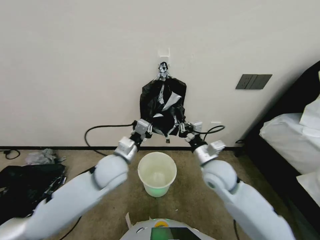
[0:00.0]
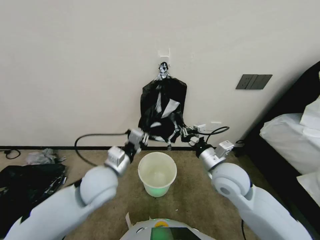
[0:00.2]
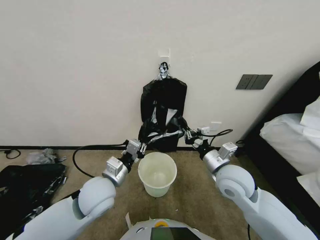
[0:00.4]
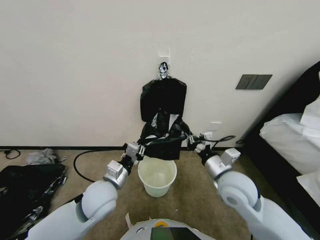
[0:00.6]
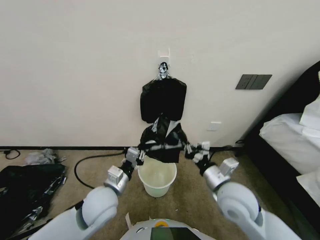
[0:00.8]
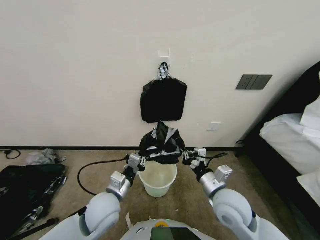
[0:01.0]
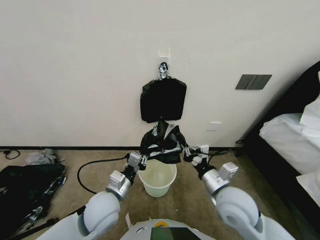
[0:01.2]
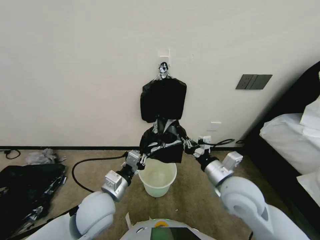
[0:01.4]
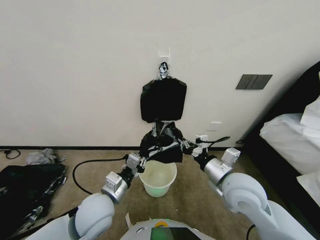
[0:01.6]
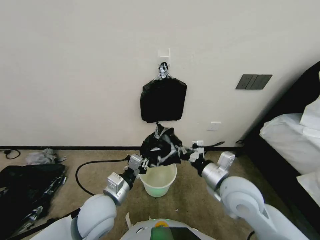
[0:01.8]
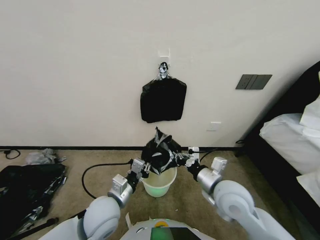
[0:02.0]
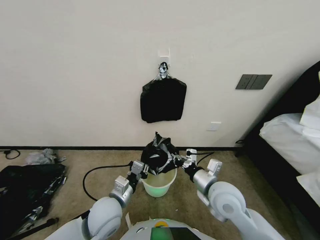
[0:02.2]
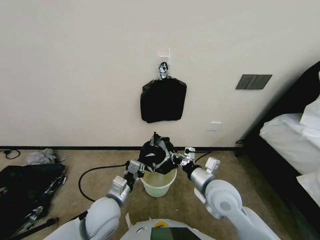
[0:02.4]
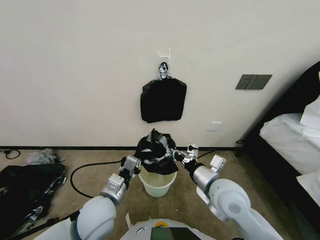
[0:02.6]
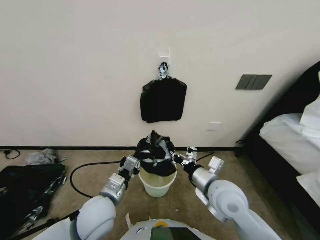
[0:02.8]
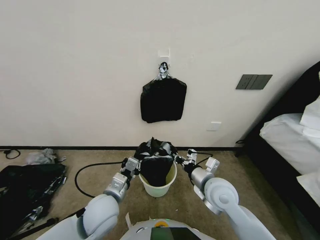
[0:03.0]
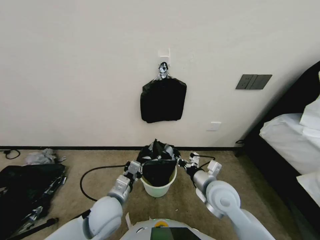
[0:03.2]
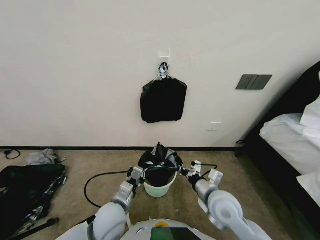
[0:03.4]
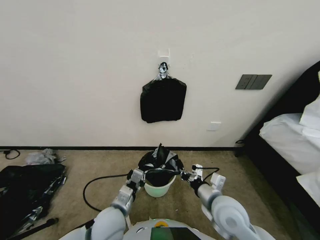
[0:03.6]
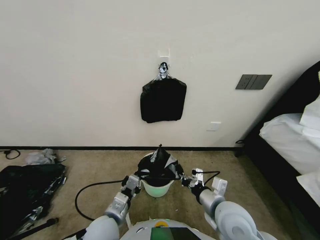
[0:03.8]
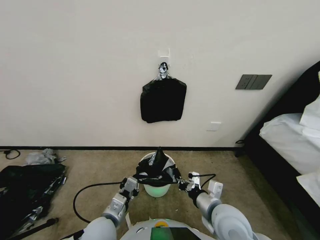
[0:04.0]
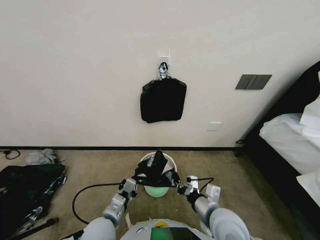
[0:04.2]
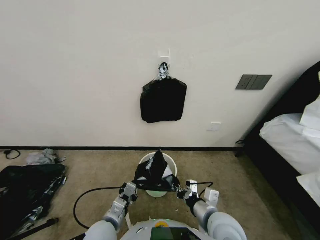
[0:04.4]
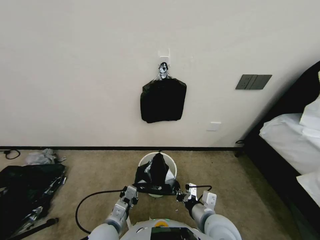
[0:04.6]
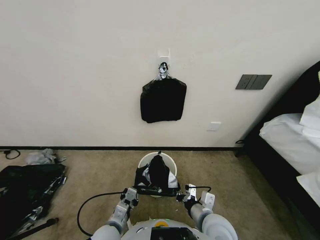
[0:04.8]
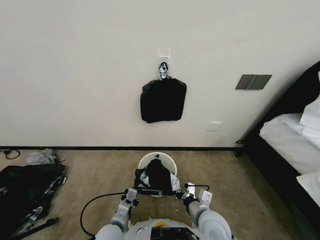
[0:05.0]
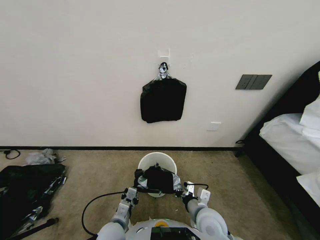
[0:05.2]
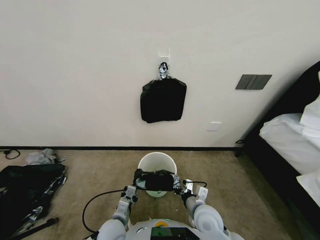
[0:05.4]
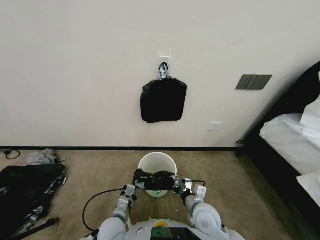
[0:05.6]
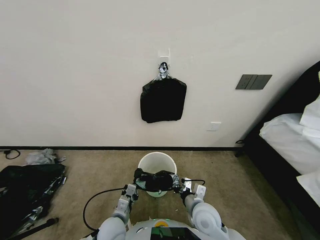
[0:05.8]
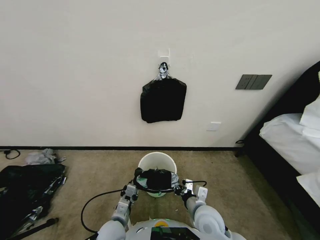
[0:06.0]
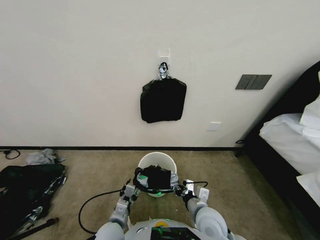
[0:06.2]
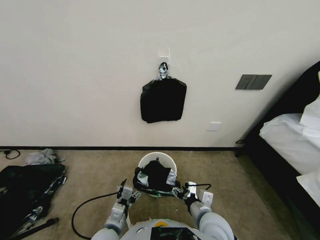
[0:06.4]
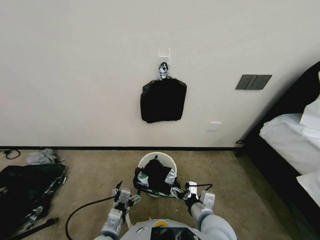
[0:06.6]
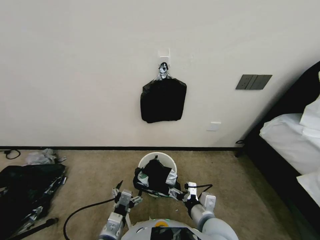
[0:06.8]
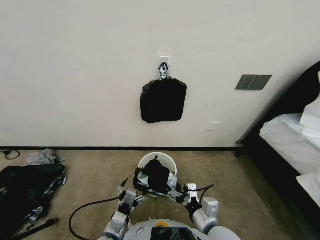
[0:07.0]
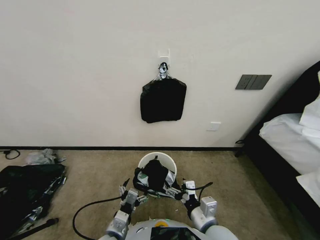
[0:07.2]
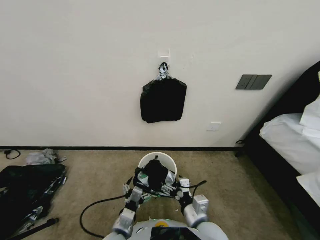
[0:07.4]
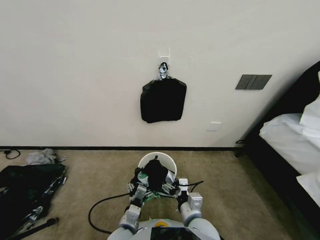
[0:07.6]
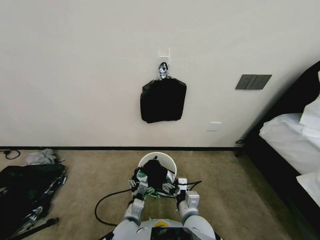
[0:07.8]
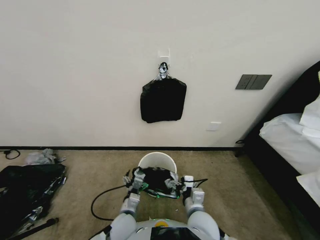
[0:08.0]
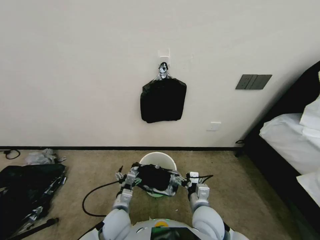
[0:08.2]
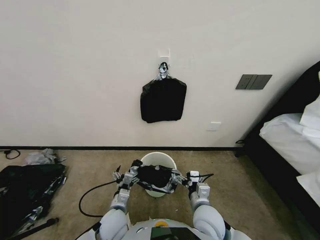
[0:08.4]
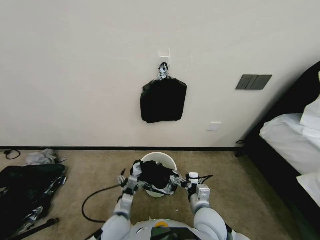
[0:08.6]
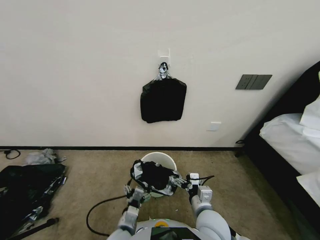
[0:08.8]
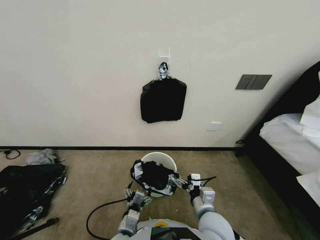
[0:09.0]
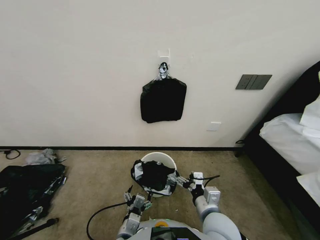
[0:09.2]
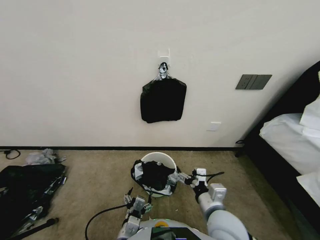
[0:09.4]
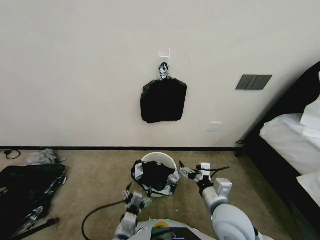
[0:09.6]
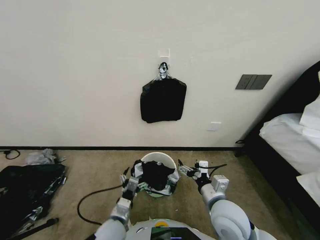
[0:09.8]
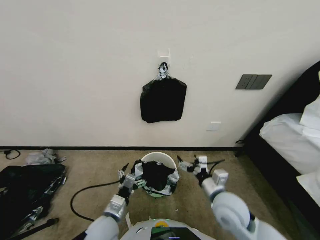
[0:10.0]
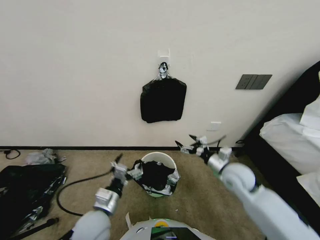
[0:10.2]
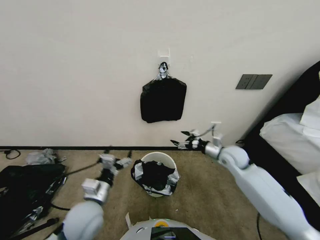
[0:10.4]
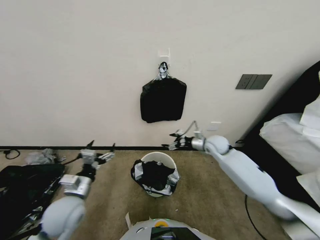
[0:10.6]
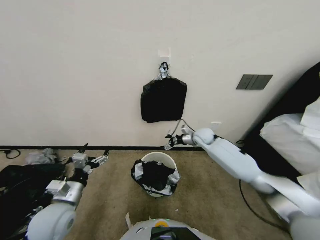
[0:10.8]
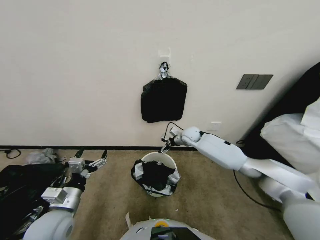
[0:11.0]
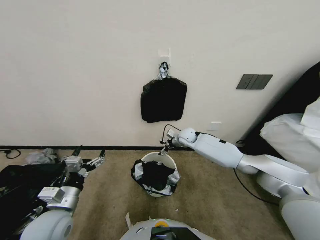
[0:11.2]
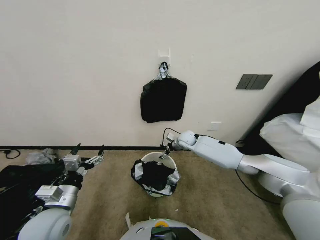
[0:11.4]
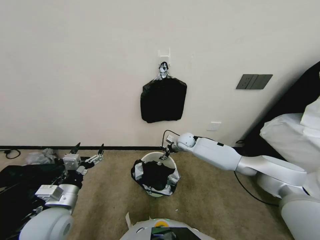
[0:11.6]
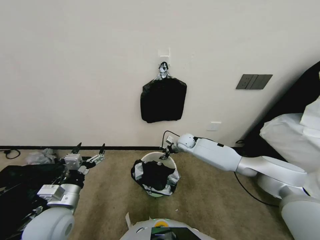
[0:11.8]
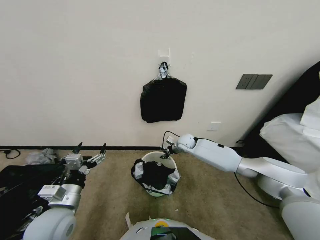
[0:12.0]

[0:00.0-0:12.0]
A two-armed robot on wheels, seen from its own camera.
Task of the whole recording: Place a trash bag onto the trash bin.
0:00.0 to 0:01.6: The left gripper travels backward by approximately 10 cm; the right gripper goes some 5 cm backward.
0:01.6 to 0:03.0: The right gripper changes place by some 5 cm.
0:03.0 to 0:04.4: The left gripper moves downward, about 5 cm, while the right gripper shifts approximately 10 cm backward.
0:04.4 to 0:06.0: Both grippers move downward, some 5 cm.
0:06.0 to 0:07.6: The right gripper heads backward, covering some 5 cm, and opens its fingers. Meanwhile the left gripper shifts by approximately 5 cm, and opens.
0:09.0 to 0:10.4: The right gripper moves forward and to the right, about 25 cm. The left gripper goes about 15 cm upward, to the left and forward.
0:10.4 to 0:12.0: The right gripper shifts approximately 25 cm forward, to the left and downward, and closes up. The left gripper moves to the left, some 10 cm.

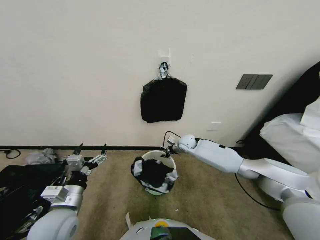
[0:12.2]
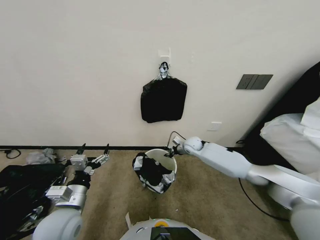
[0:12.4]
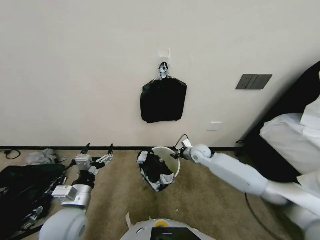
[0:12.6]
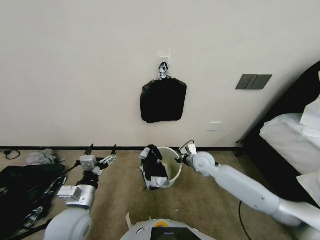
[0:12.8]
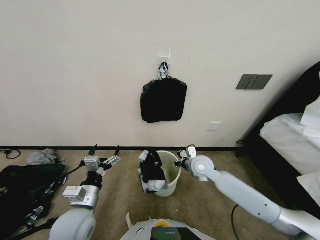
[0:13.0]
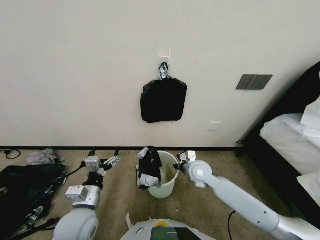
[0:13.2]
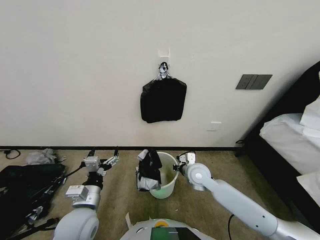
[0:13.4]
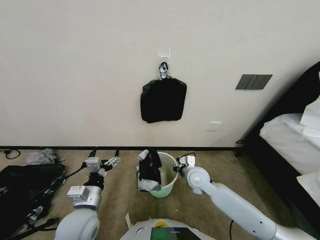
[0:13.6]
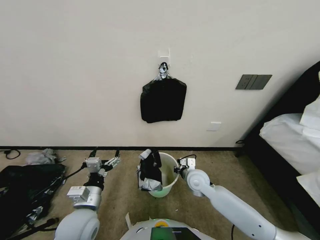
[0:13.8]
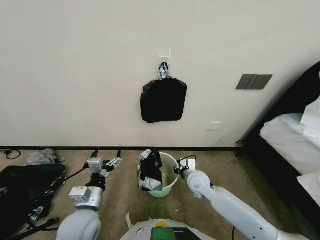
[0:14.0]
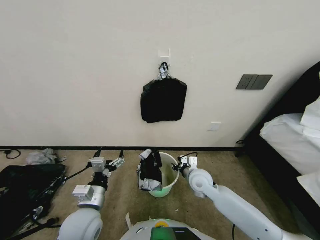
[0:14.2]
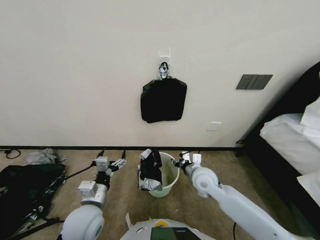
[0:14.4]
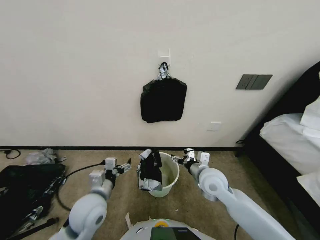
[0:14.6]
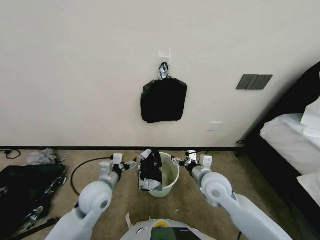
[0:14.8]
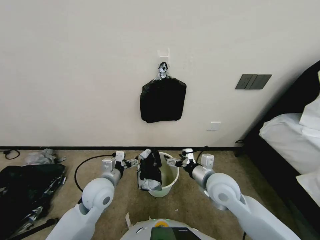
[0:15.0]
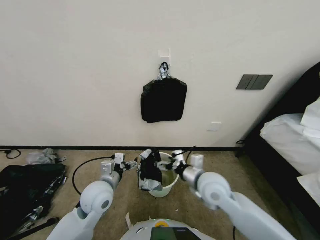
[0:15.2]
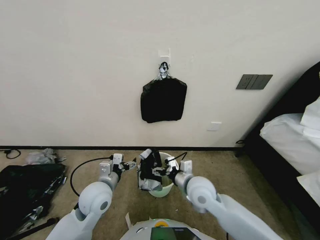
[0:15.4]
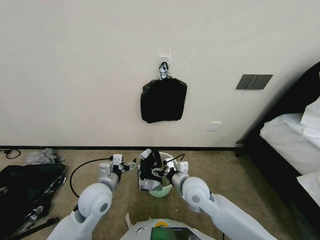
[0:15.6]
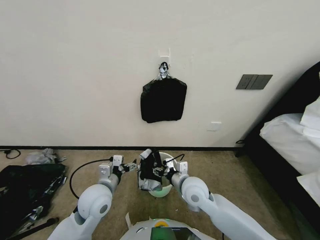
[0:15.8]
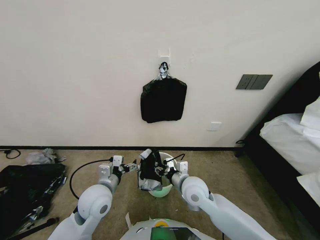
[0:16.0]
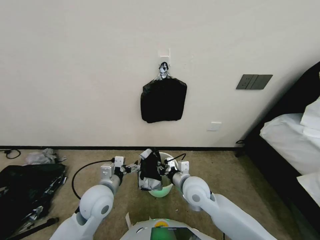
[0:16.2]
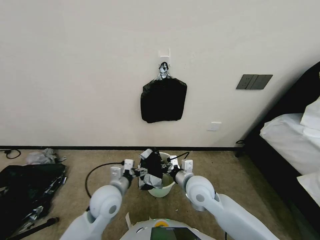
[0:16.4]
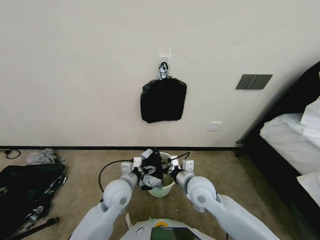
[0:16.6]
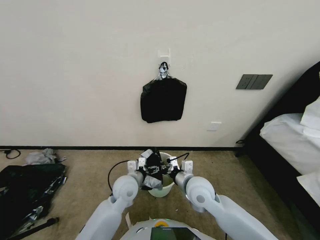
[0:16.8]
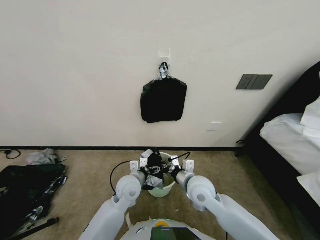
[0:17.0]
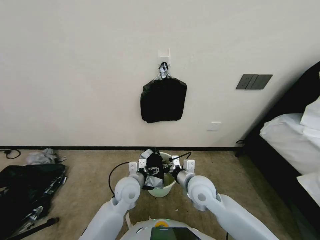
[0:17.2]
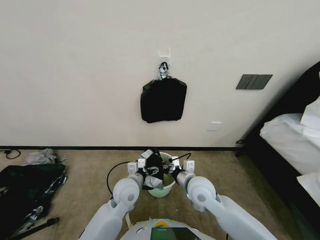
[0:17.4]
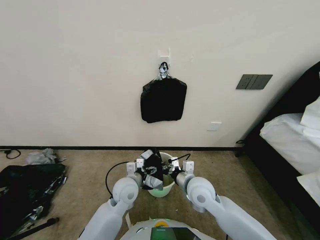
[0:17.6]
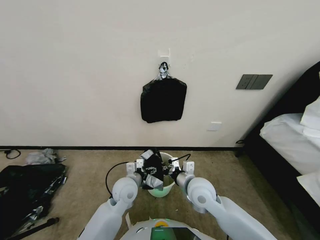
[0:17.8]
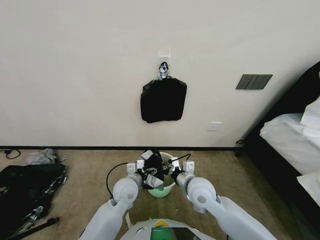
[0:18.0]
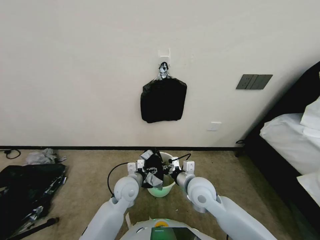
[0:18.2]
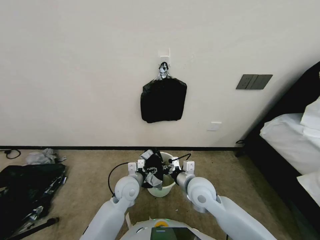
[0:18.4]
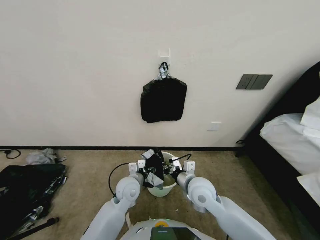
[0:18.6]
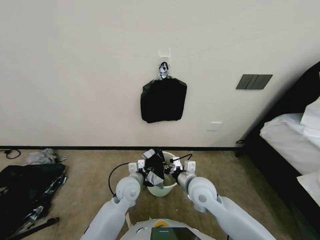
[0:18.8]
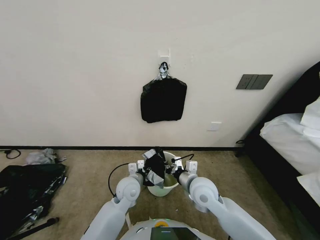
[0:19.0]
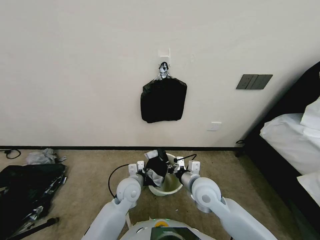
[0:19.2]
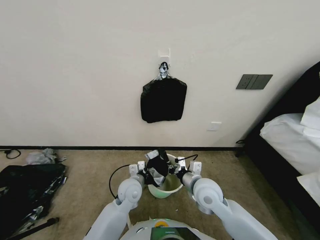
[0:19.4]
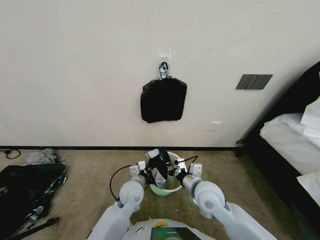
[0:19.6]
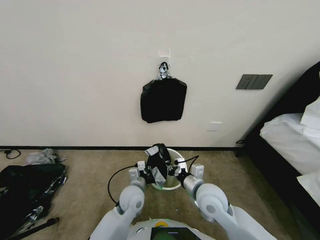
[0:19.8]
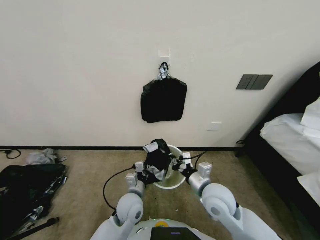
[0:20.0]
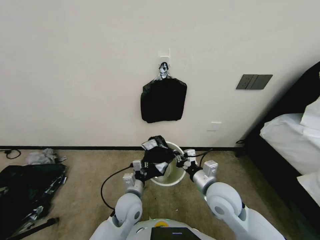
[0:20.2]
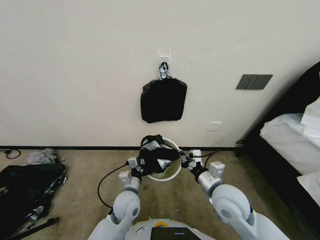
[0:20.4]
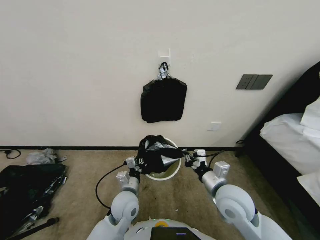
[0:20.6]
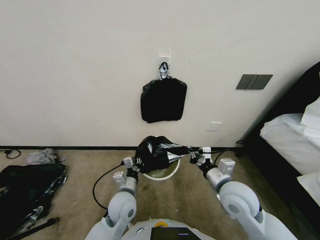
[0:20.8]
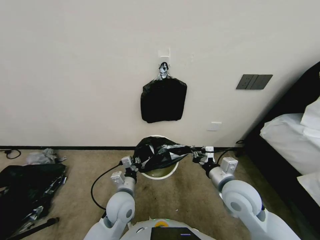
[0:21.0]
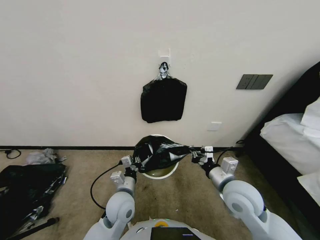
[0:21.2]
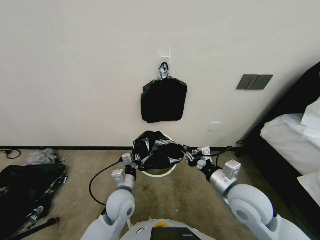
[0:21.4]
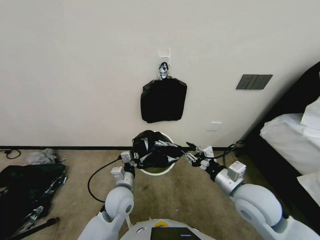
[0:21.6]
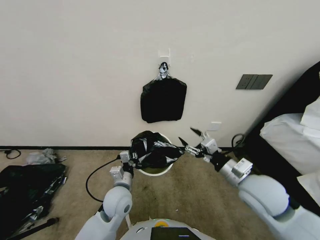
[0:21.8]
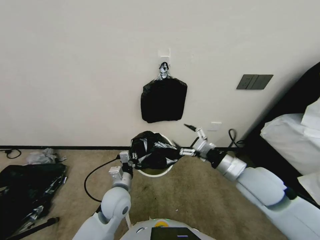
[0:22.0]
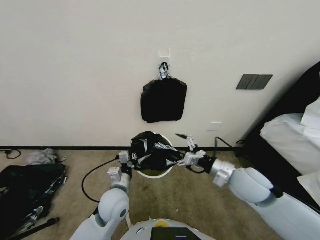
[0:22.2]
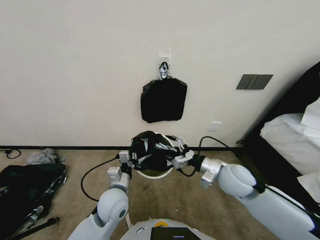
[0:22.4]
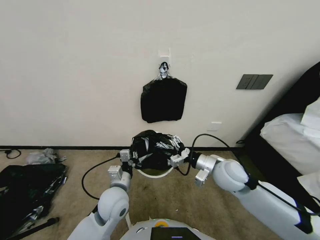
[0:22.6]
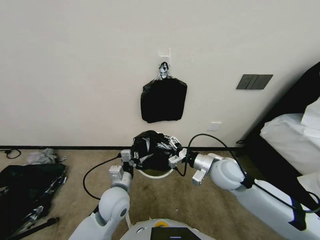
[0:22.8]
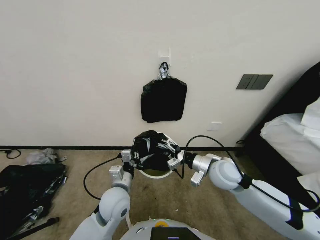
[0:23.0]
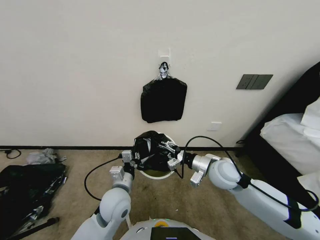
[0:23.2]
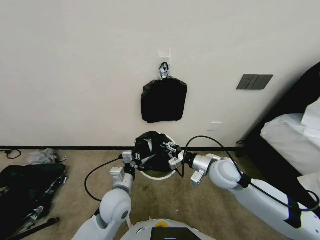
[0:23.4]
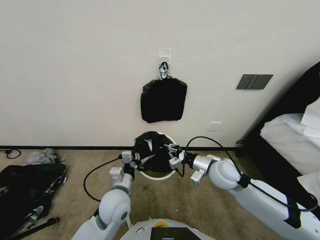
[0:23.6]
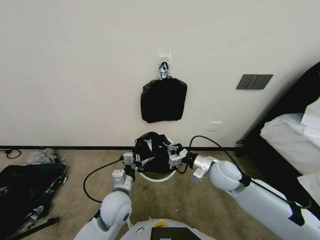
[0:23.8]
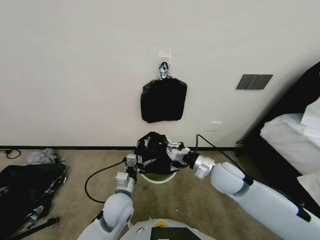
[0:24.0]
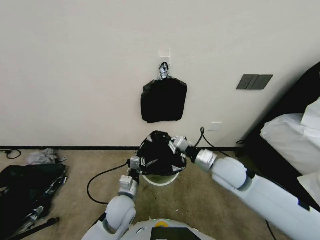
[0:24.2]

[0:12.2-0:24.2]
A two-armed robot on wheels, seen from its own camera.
Task of the whole recording: Place a trash bag onto the trash bin.
0:12.2 to 0:13.8: The left gripper is displaced to the right by approximately 5 cm. The right gripper heads backward, covering approximately 20 cm.
0:13.8 to 0:15.2: The left gripper shifts approximately 10 cm forward; the right gripper heads upward and backward, covering some 15 cm, and opens its fingers.
0:15.2 to 0:16.6: The left gripper moves to the right, roughly 5 cm; the right gripper moves roughly 5 cm, and closes up.
0:16.6 to 0:18.2: The left gripper moves roughly 5 cm.
0:18.2 to 0:19.8: The left gripper closes its fingers.
0:19.8 to 0:21.2: The left gripper changes place by some 5 cm. Meanwhile the right gripper moves to the right, approximately 10 cm.
0:21.2 to 0:22.6: The right gripper travels forward by about 5 cm, and opens.
0:22.6 to 0:24.2: The right gripper closes.
